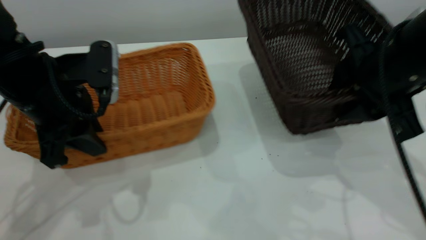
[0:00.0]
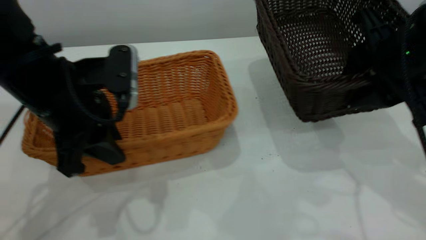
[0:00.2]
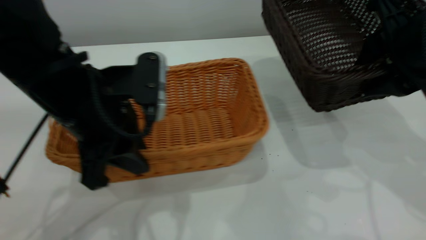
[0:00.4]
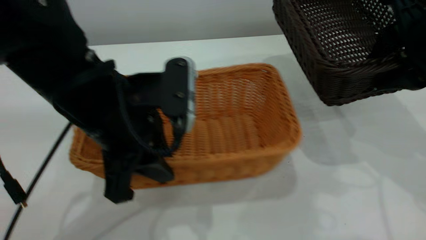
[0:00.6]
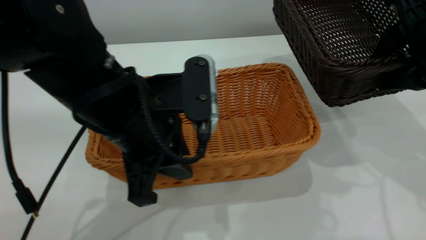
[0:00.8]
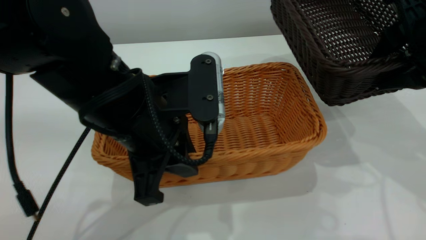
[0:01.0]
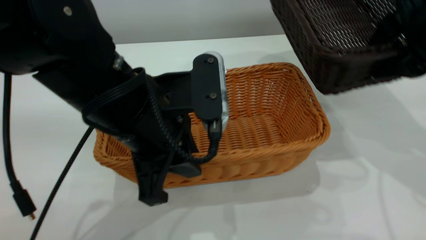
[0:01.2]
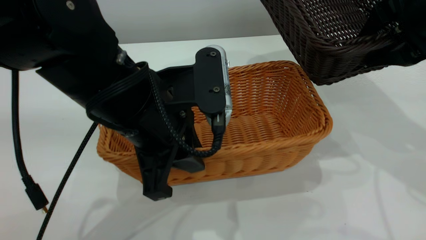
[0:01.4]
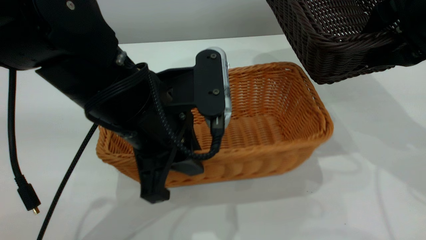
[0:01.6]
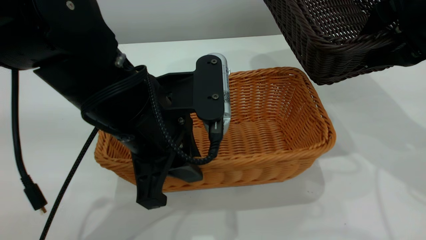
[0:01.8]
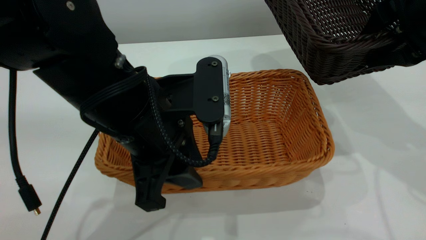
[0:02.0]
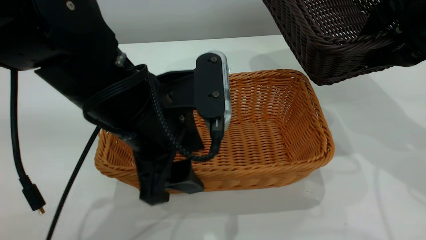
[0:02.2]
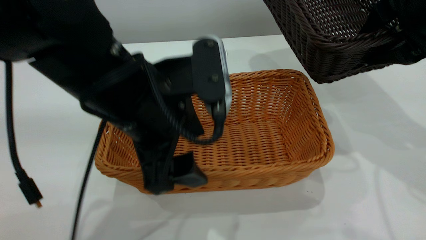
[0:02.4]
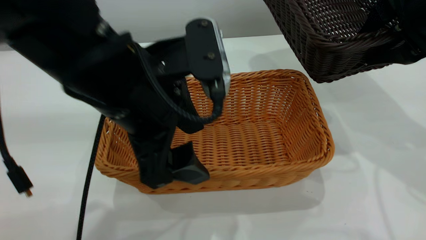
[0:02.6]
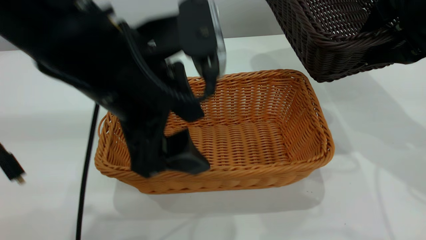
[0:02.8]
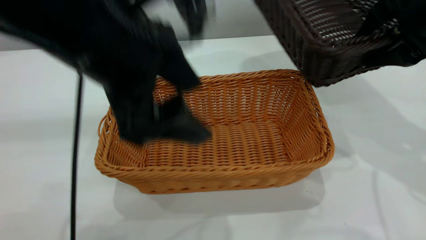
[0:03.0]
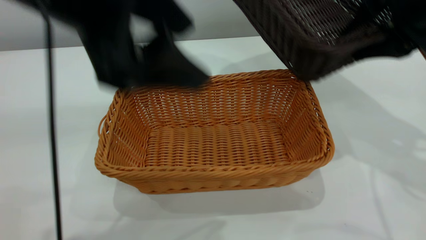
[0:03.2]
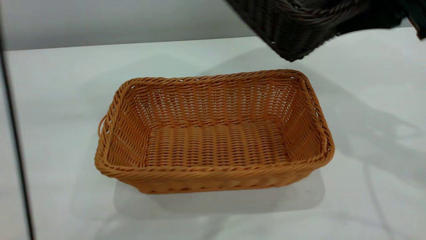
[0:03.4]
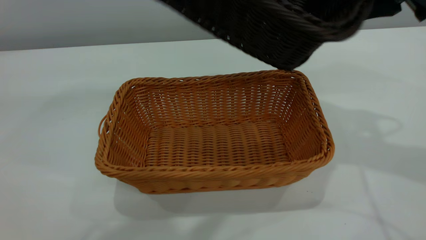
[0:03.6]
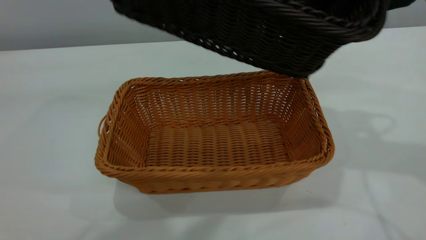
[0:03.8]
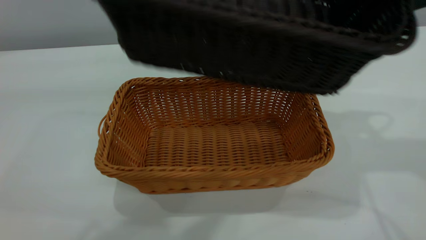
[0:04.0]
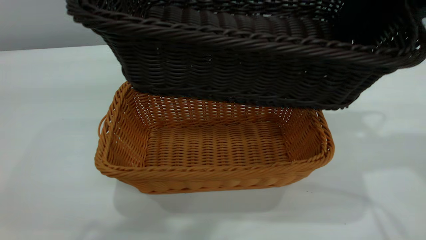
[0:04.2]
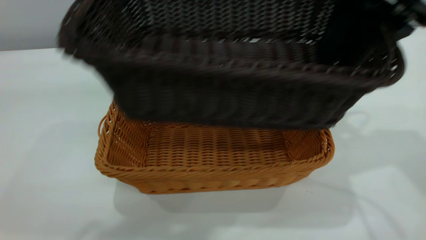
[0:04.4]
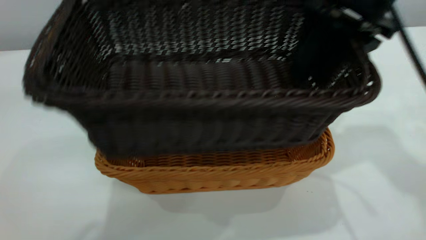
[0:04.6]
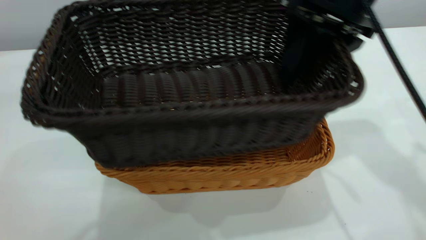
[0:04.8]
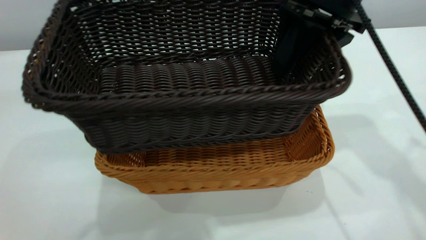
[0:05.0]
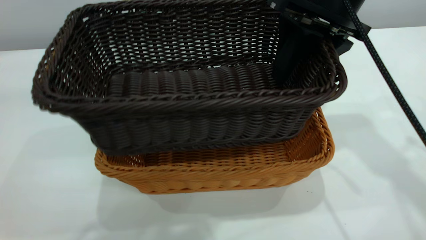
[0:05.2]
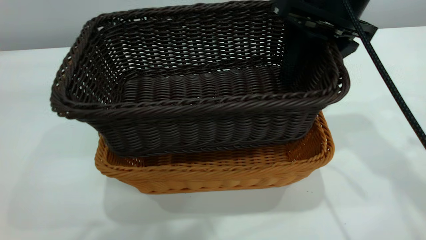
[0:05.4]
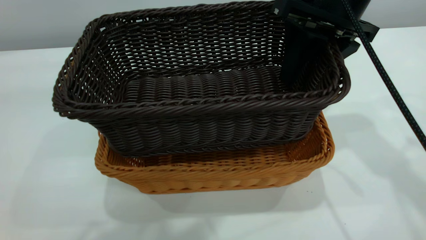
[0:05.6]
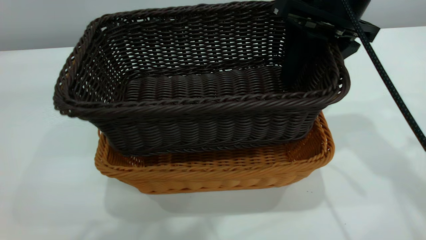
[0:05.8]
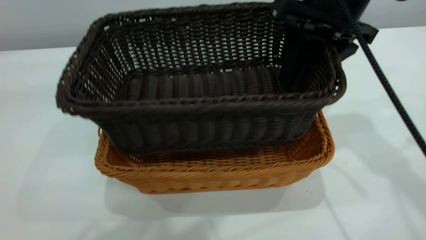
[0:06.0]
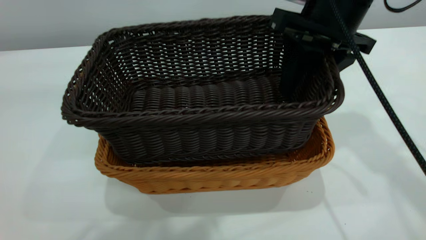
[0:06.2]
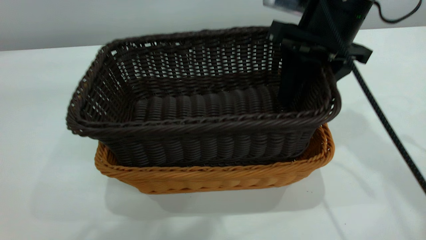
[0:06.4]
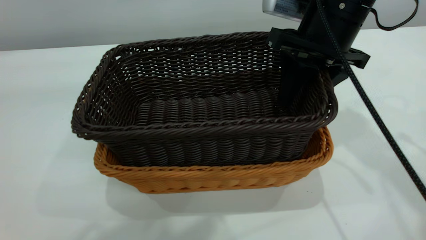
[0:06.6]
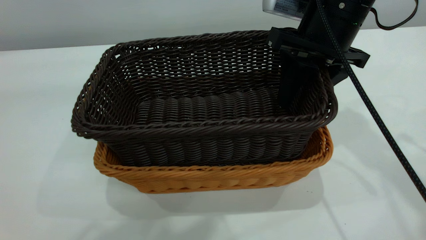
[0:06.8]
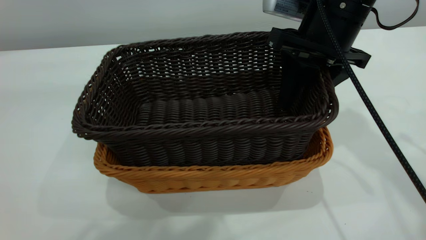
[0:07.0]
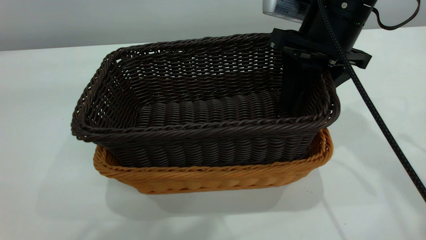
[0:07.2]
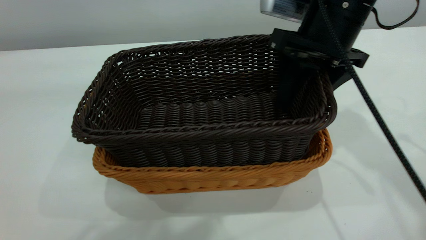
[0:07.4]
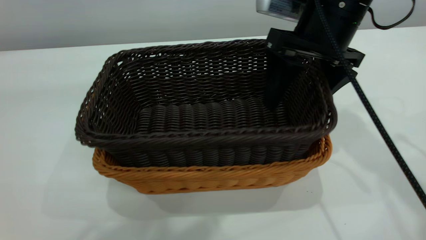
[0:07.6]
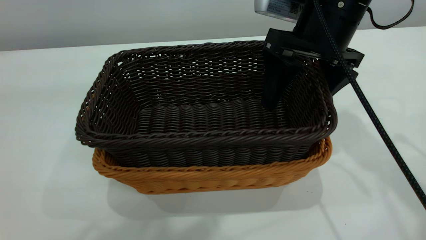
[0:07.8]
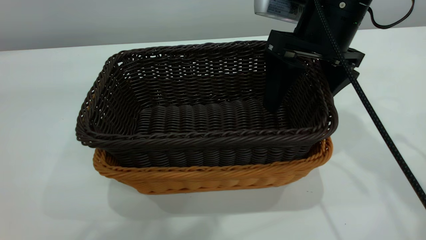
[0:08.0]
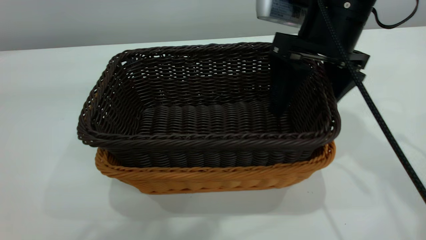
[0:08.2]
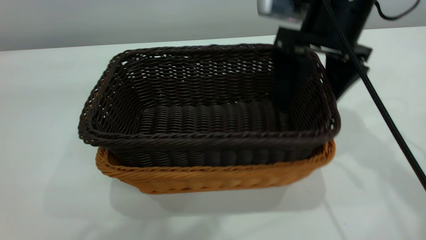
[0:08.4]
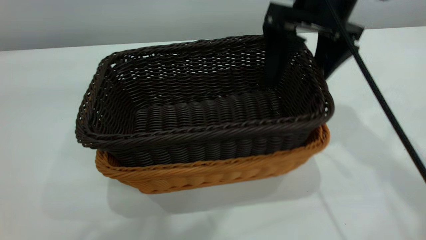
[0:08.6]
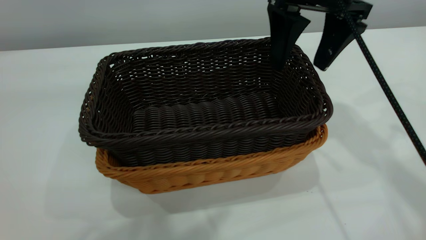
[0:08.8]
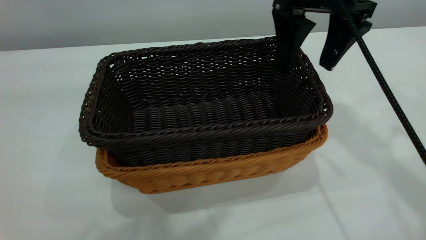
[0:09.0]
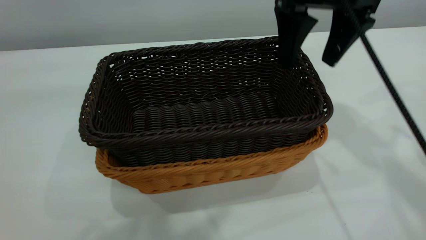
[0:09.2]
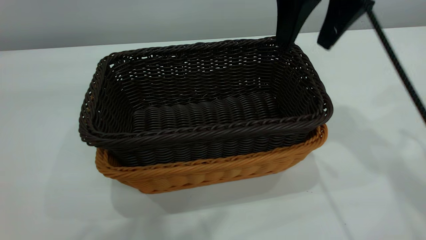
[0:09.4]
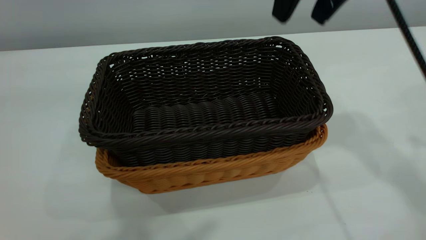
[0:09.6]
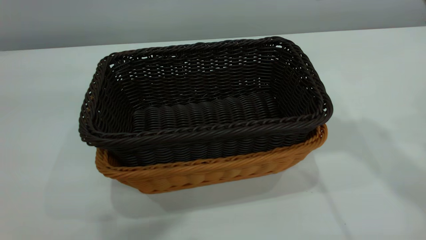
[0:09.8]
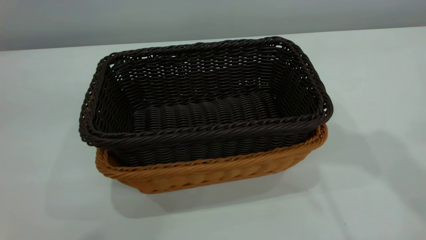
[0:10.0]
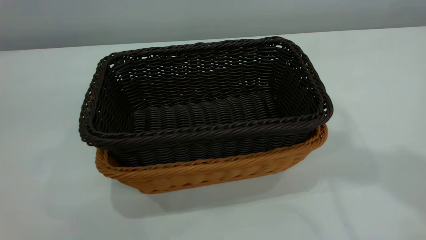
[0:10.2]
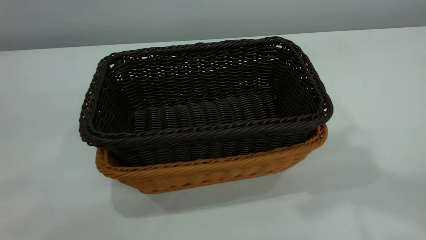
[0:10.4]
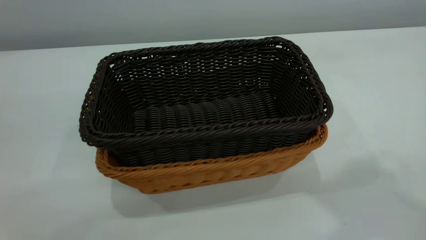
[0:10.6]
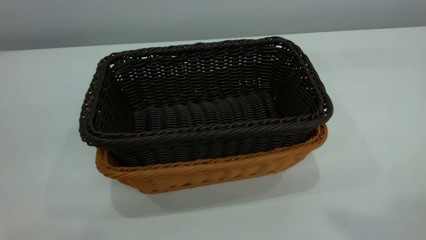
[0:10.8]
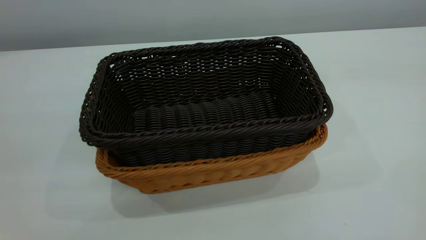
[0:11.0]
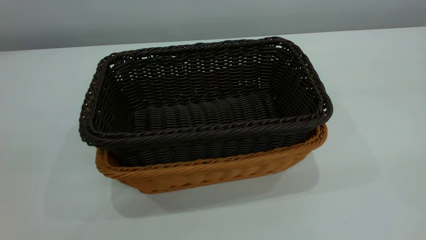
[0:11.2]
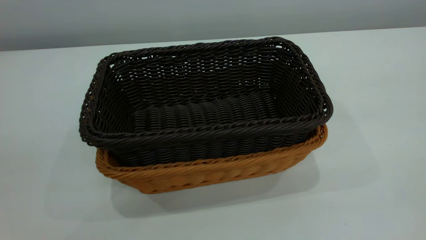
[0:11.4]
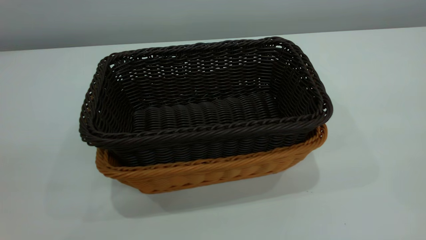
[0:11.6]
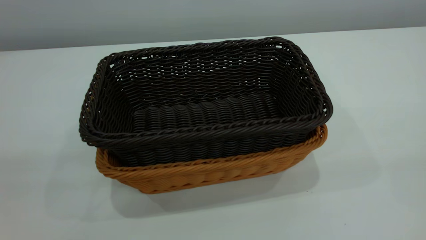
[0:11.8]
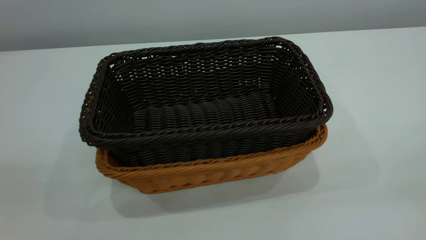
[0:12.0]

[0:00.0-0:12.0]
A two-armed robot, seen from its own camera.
Task of the whole recording: the left gripper grasp the brown basket and place it in the center of the table, the right gripper grasp the black basket and place it inside the brown one.
Step, 0:00.2 to 0:02.4: Place the light-colored basket in the center.
Step, 0:02.6 to 0:09.0: Place the dark basket on top of the light basket.
0:00.0 to 0:01.6: The left gripper goes about 10 cm to the right, while the right gripper moves roughly 5 cm.
0:01.6 to 0:03.0: The left gripper goes roughly 10 cm upward, and opens.
0:03.0 to 0:04.4: The left gripper is displaced upward by approximately 20 cm. Meanwhile the right gripper moves some 5 cm.
0:04.4 to 0:06.0: The right gripper shifts by approximately 5 cm.
0:06.0 to 0:07.6: The right gripper opens its fingers.
0:07.6 to 0:09.0: The right gripper ends up some 5 cm from where it was.
0:09.0 to 0:10.4: The left gripper goes some 15 cm backward and to the left, and closes up. The right gripper moves upward and backward, some 30 cm, and closes up.

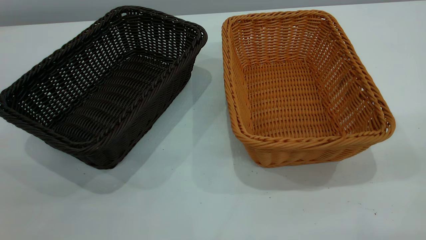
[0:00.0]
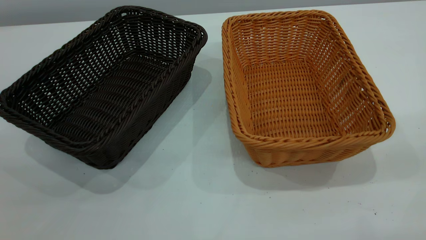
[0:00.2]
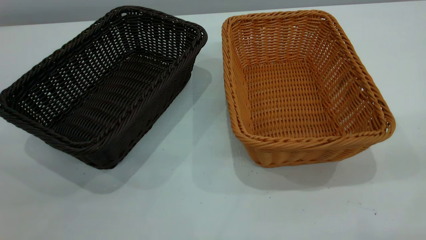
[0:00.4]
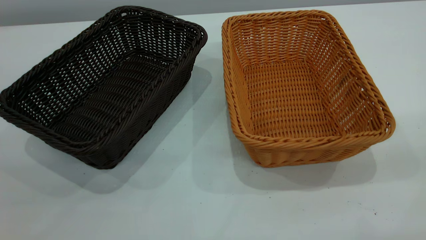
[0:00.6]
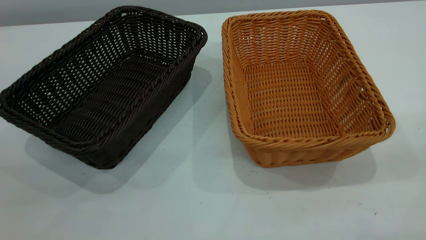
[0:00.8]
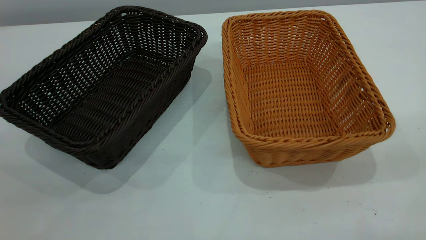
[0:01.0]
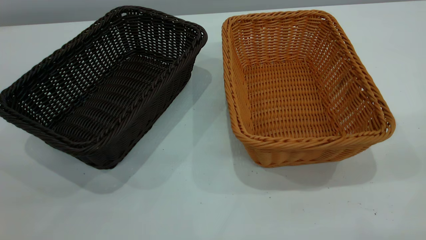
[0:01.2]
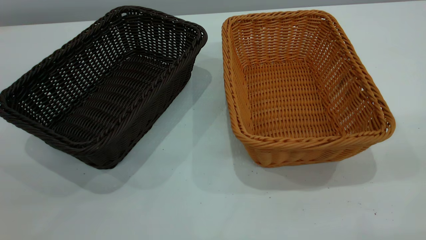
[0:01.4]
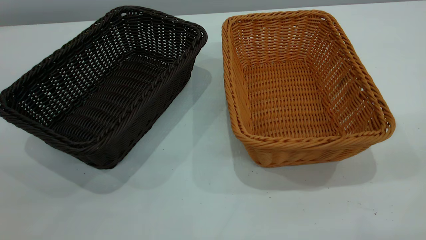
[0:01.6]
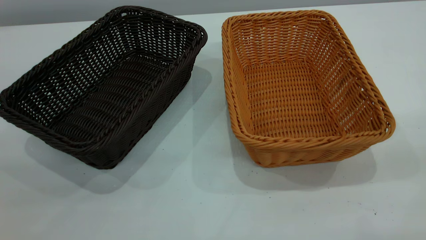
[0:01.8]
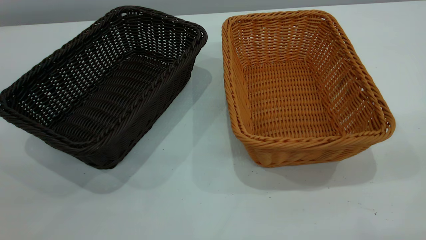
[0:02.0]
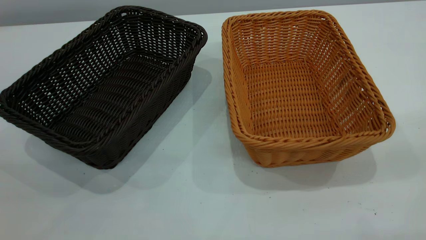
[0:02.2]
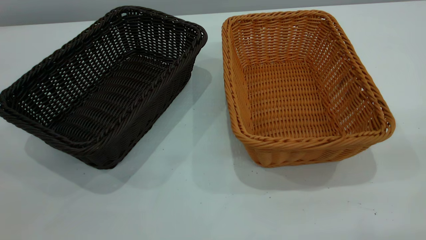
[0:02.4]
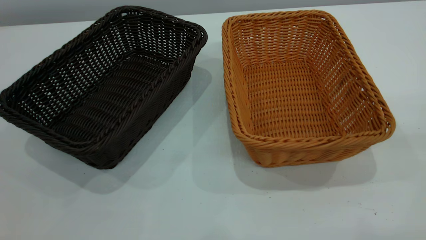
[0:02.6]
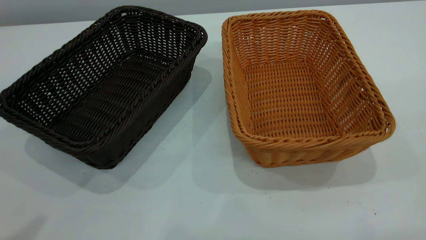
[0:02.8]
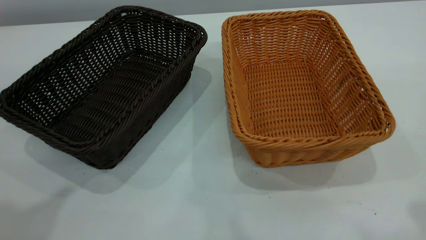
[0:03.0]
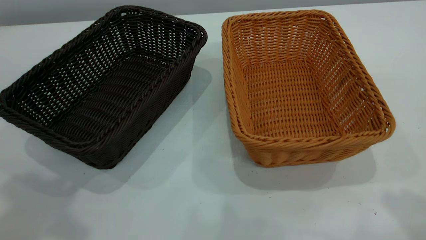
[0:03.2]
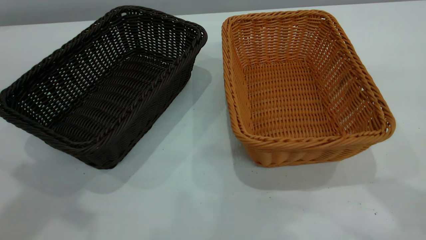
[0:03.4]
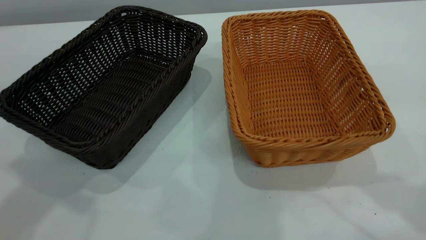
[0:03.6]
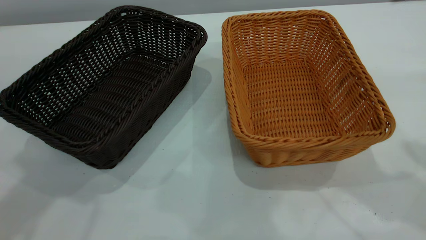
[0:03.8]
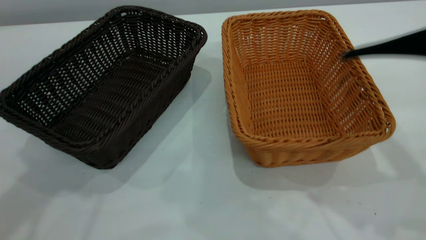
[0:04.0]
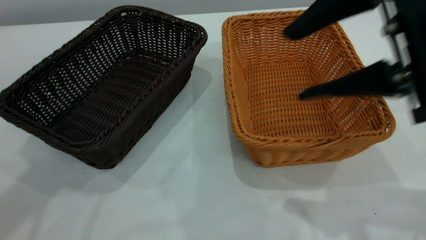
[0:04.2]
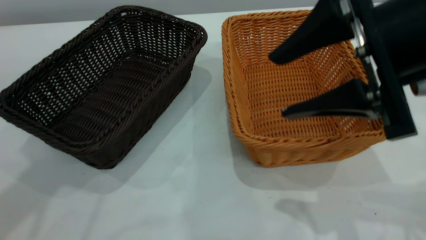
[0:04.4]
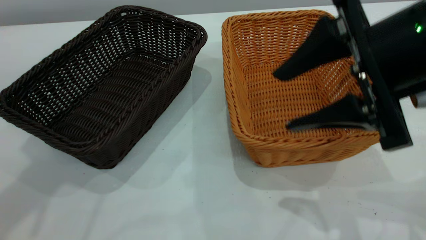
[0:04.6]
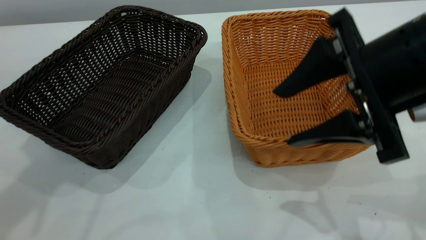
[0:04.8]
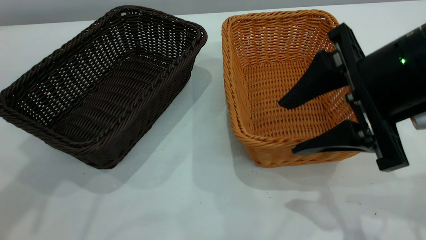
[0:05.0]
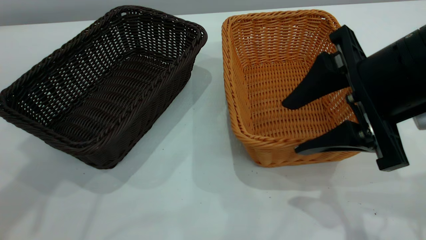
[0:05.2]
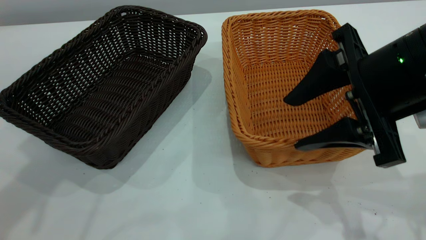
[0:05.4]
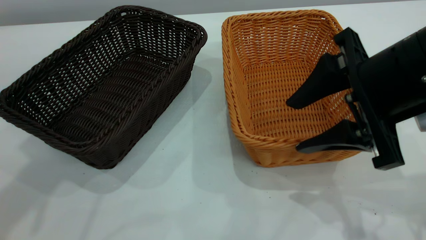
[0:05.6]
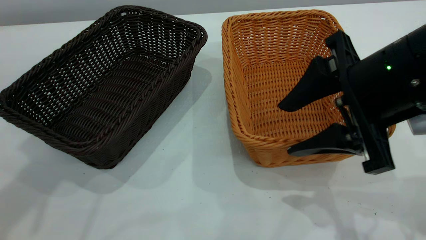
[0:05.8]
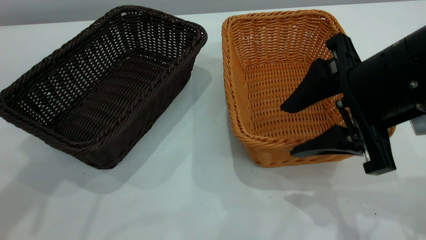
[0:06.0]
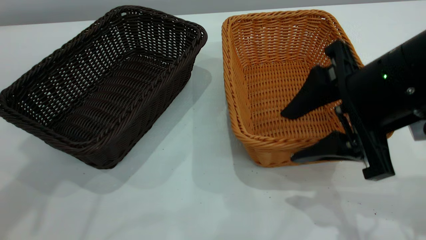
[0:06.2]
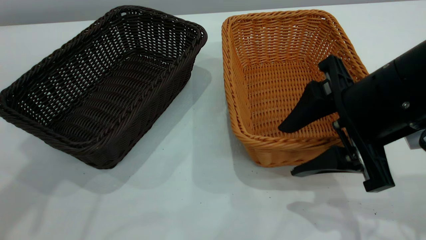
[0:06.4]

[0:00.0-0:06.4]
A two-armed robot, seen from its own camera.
Task of the whole recording: the left gripper grasp the black basket and place it in the center of the table, the right gripper grasp the brown basket and place it inside the black one.
0:00.0 to 0:01.6: The two grippers keep their place.
0:03.2 to 0:04.8: The right gripper is displaced downward, forward and to the left by approximately 20 cm, and opens up, while the left gripper is displaced forward by about 5 cm, and opens.
0:04.8 to 0:06.4: The grippers move only a little.
